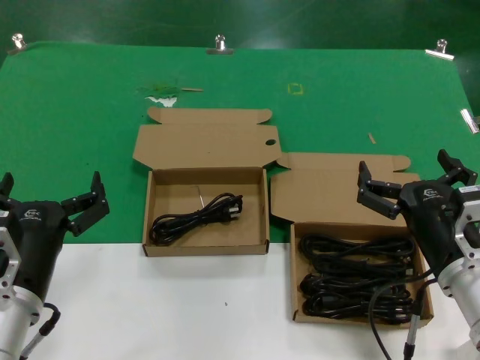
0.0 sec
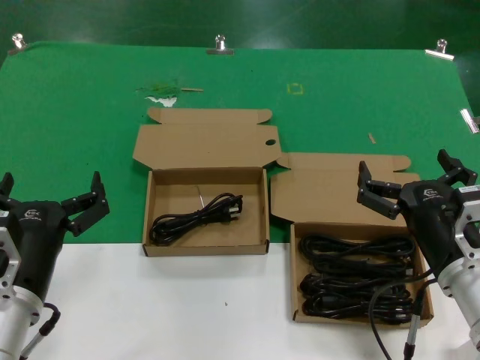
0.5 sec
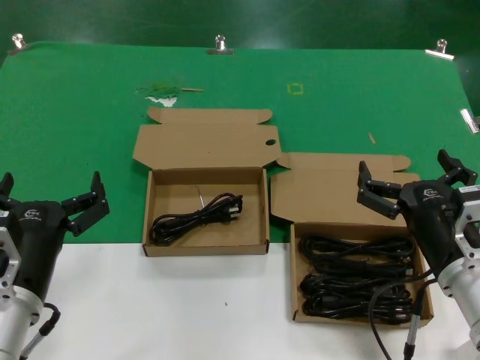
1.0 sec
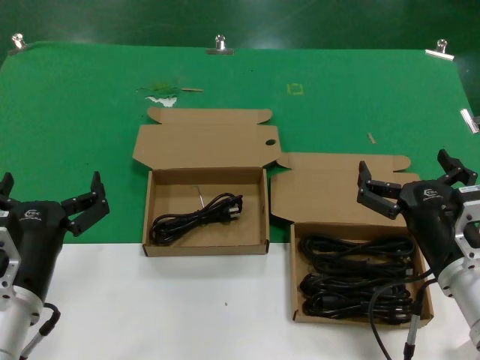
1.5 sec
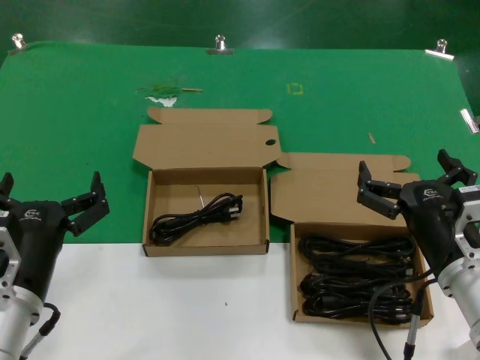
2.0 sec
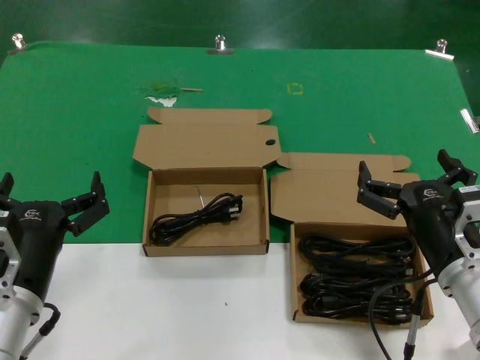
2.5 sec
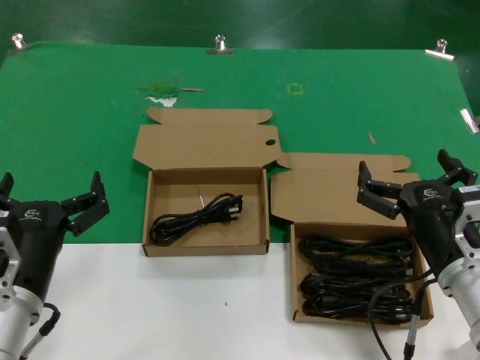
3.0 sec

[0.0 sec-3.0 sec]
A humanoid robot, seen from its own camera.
Task of the whole recording: take the parts from the box containing them and put them into an empty box.
0.0 sec to 3.0 sec: The two hands keep their place.
